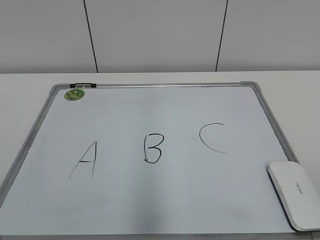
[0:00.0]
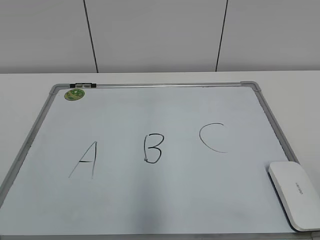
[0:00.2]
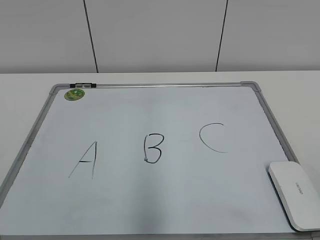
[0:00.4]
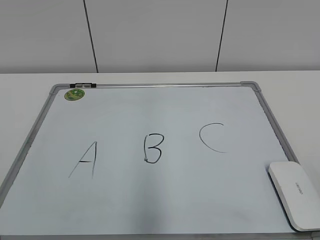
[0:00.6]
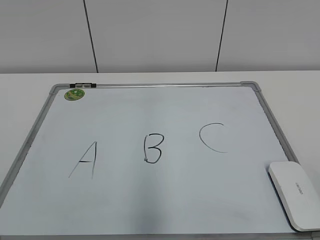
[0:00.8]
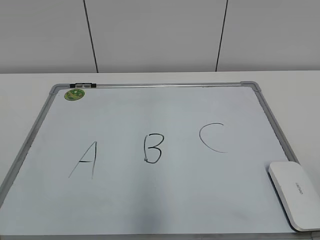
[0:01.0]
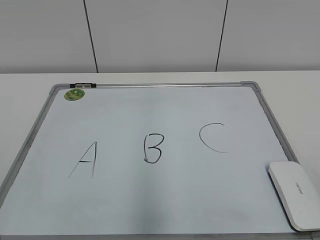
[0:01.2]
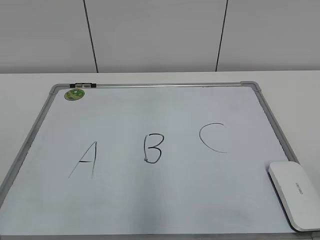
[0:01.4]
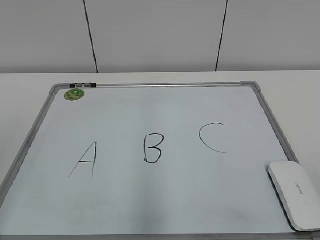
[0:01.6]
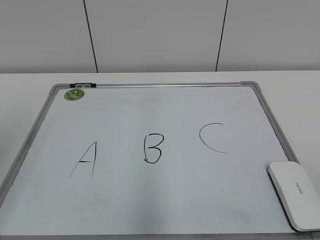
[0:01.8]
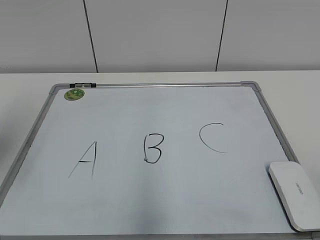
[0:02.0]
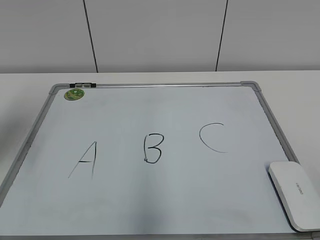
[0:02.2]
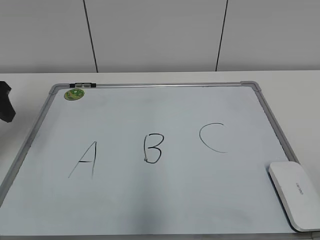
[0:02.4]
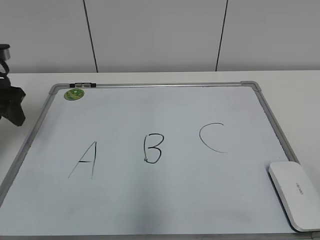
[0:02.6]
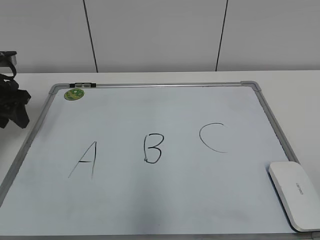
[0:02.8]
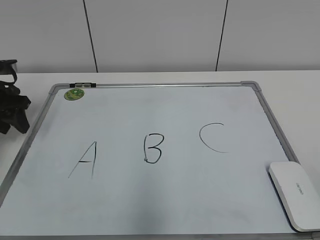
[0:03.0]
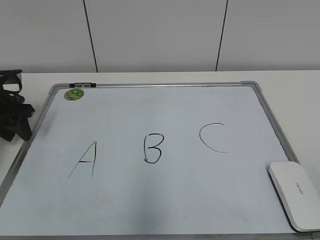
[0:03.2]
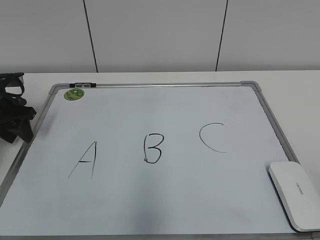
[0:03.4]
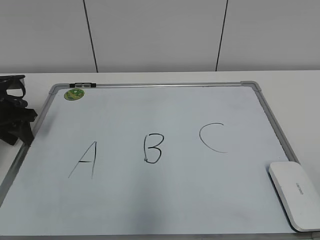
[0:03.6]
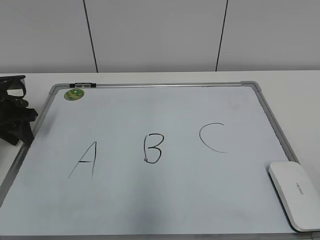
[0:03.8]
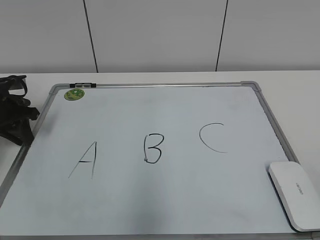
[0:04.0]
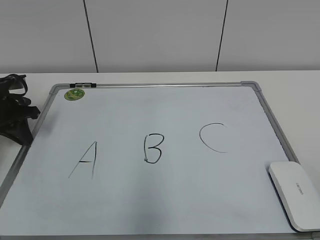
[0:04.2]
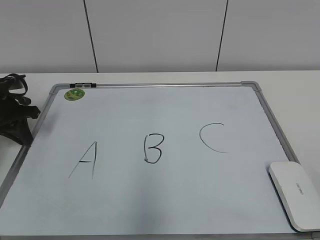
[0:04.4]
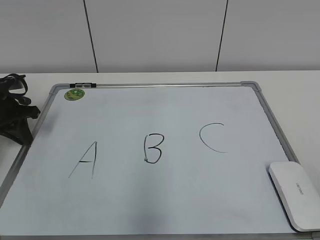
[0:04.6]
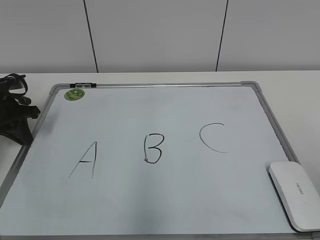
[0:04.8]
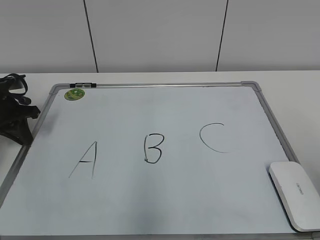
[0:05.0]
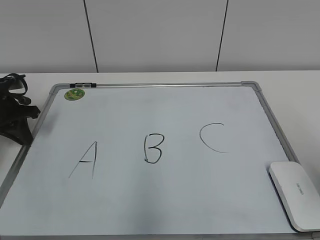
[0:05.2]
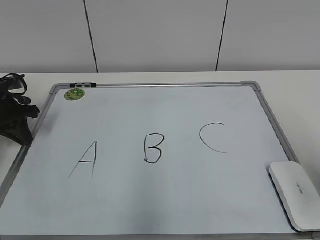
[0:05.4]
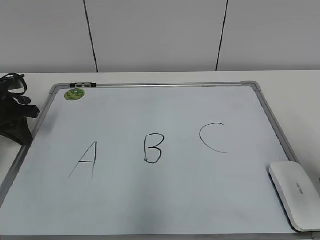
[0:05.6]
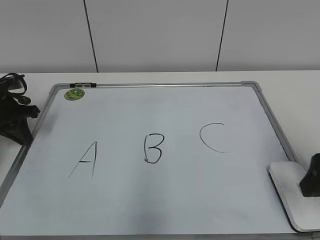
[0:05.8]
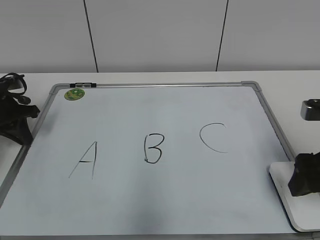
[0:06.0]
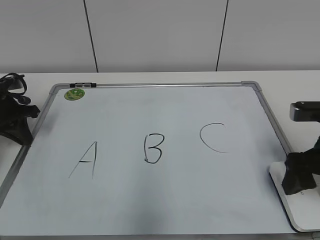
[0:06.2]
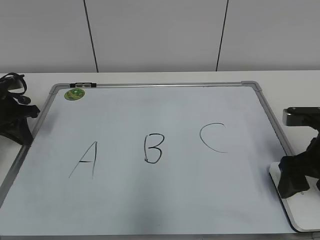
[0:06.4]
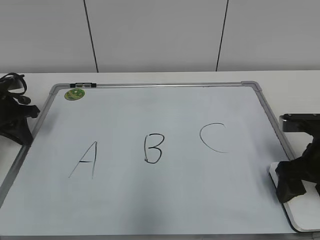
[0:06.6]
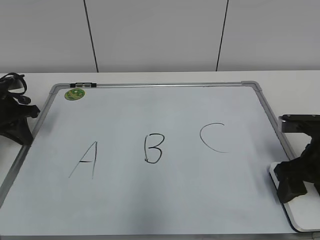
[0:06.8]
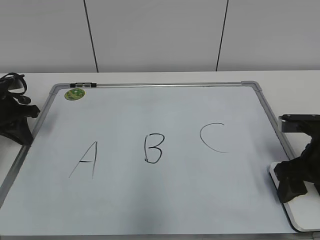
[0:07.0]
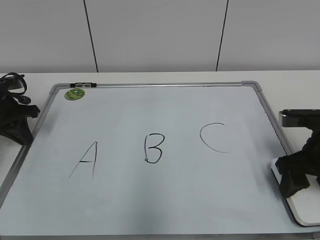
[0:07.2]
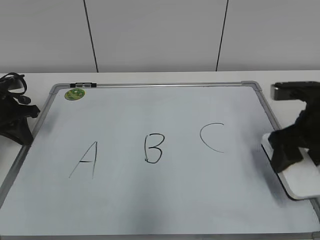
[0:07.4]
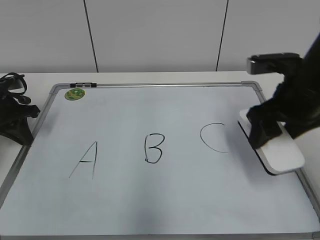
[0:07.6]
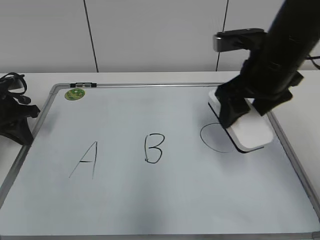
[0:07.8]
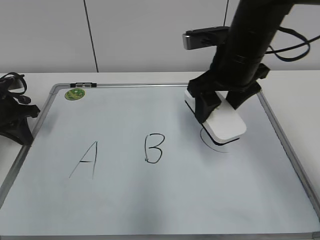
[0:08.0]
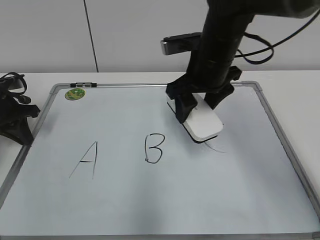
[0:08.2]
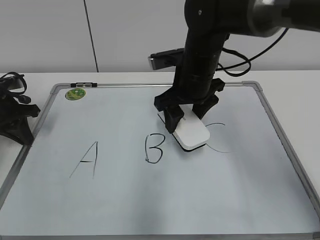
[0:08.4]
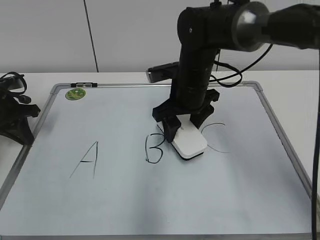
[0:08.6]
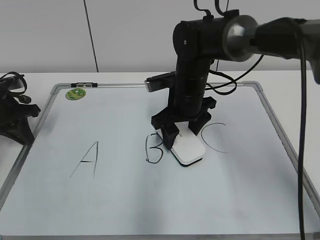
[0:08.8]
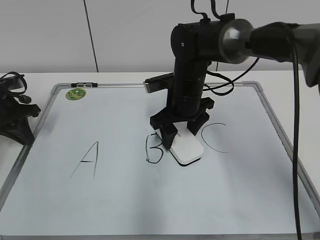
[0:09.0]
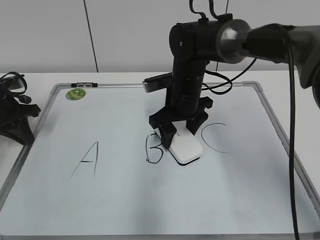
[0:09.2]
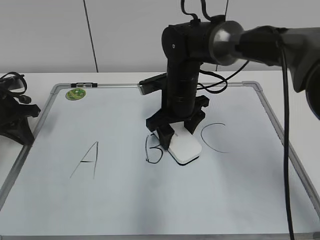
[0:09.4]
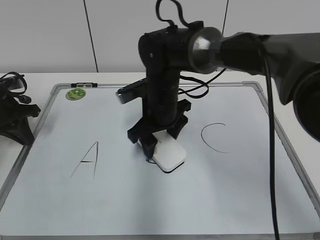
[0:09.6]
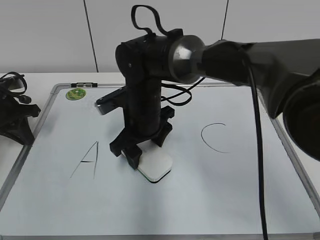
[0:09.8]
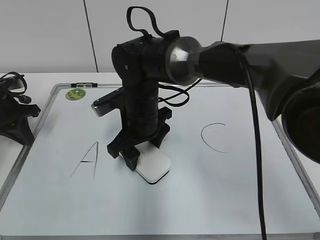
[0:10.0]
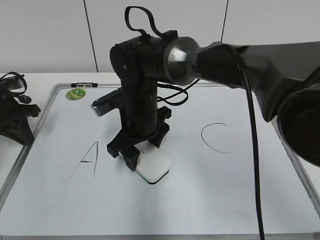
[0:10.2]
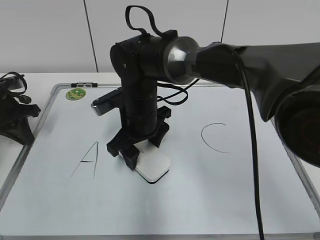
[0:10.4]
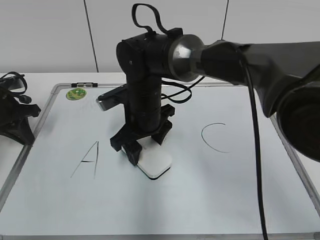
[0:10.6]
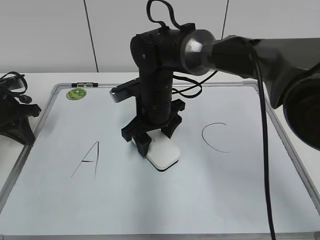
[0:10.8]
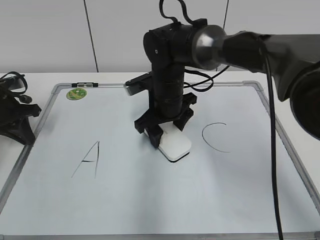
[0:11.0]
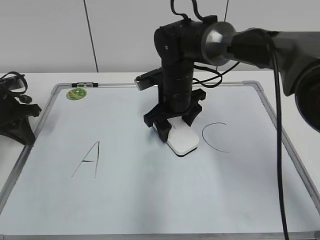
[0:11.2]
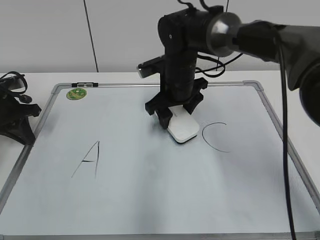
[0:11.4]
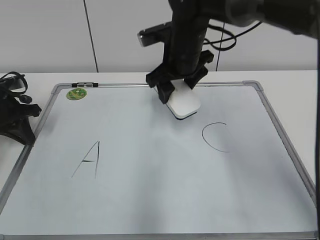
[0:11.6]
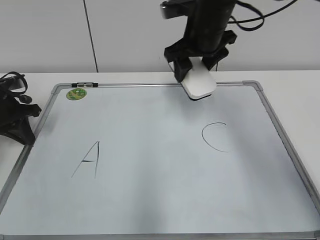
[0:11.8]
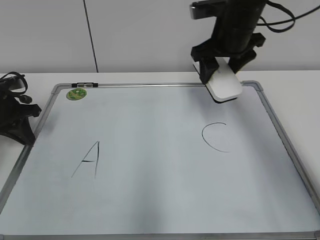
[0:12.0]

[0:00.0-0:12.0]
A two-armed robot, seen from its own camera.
Task of the whole recording: pick up the eraser on the blackboard and erase the letter "B".
Step, 0:00.0 to 0:04.0: Hold the drawing board steady with your left hand.
Step, 0:04.4 to 0:06.8: Grab the eraser with your right hand.
Step, 0:07.2 to 0:11.2: Erase the letter B with your right hand.
0:01.6 to 0:03.0: The left gripper goes some 35 cm forward and downward.
0:03.0 to 0:04.4: The left gripper closes up.
0:04.4 to 0:06.0: The right gripper moves forward, about 25 cm, and opens its fingers.
0:06.0 to 0:07.6: The right gripper moves forward and to the left, about 10 cm, and closes up.
0:07.6 to 0:09.0: The right gripper heads to the left, forward and downward, covering roughly 20 cm.
0:09.0 to 0:10.4: The right gripper shifts roughly 10 cm to the left.
0:10.4 to 0:12.0: The right gripper moves to the right, upward and forward, approximately 20 cm.

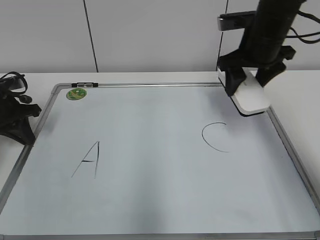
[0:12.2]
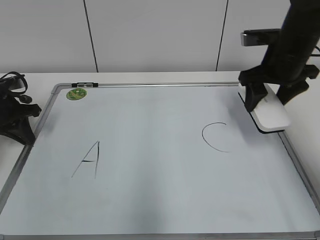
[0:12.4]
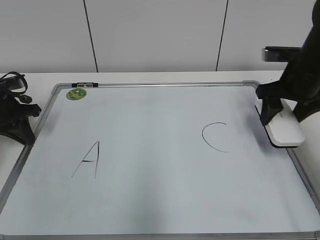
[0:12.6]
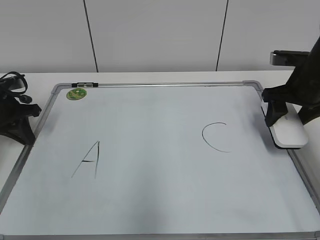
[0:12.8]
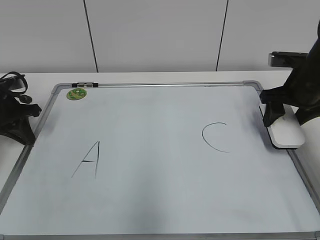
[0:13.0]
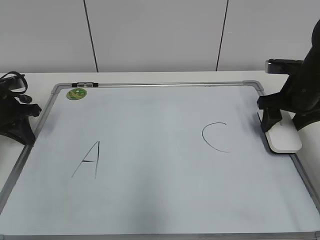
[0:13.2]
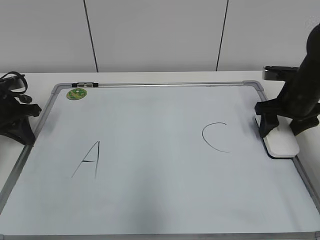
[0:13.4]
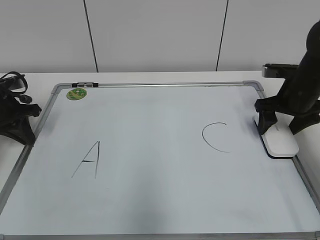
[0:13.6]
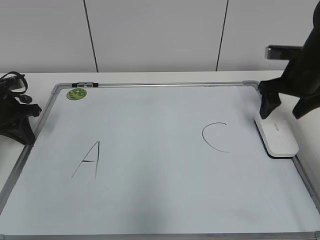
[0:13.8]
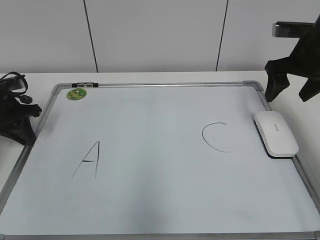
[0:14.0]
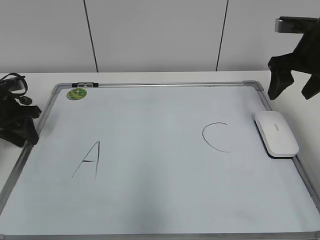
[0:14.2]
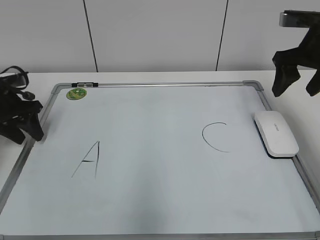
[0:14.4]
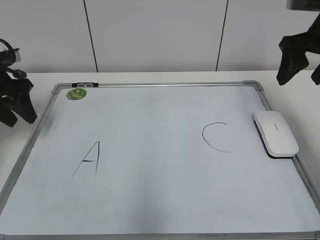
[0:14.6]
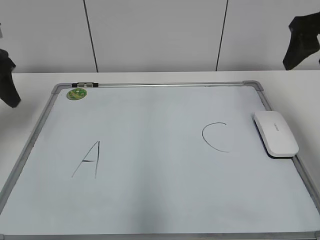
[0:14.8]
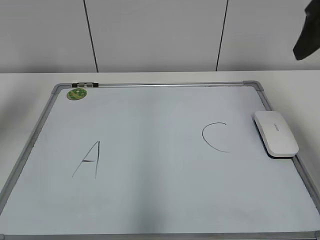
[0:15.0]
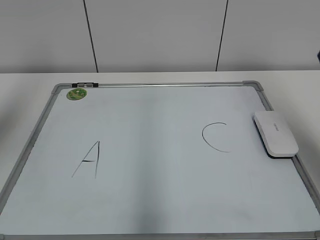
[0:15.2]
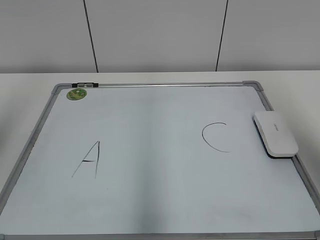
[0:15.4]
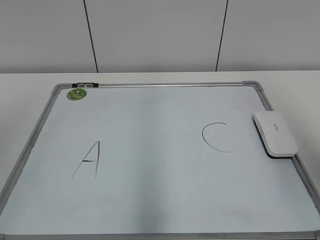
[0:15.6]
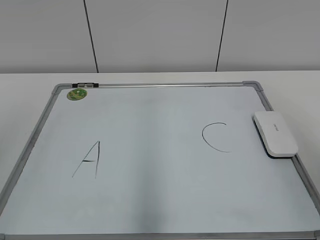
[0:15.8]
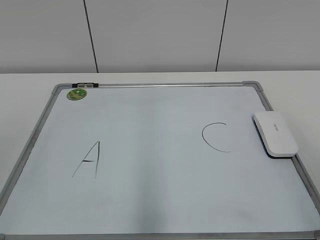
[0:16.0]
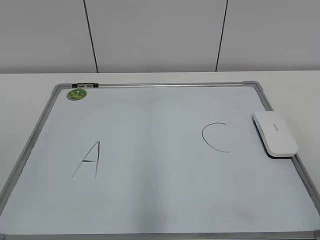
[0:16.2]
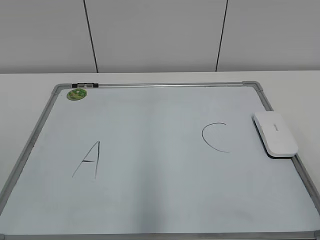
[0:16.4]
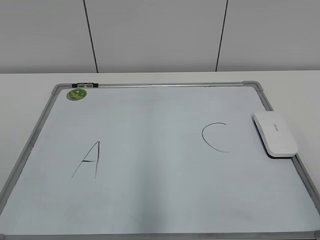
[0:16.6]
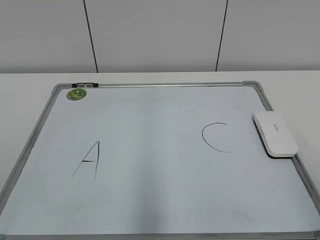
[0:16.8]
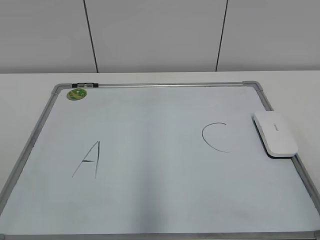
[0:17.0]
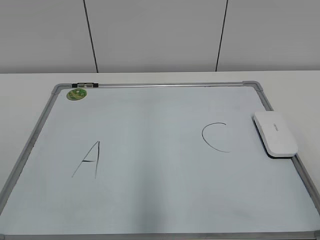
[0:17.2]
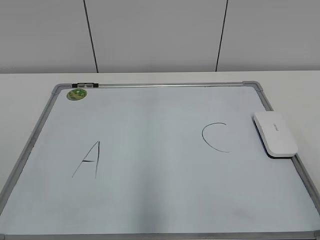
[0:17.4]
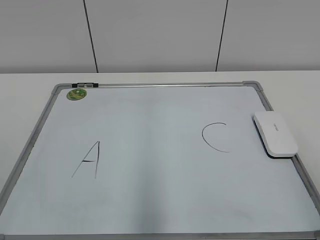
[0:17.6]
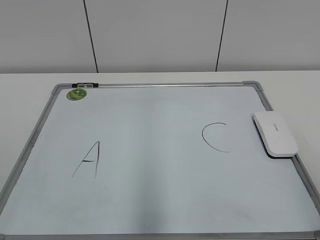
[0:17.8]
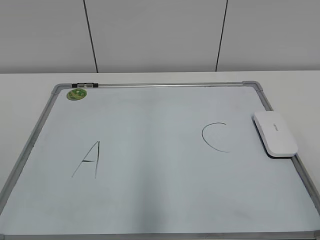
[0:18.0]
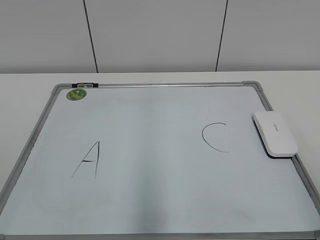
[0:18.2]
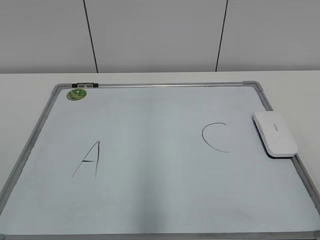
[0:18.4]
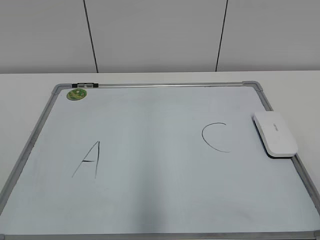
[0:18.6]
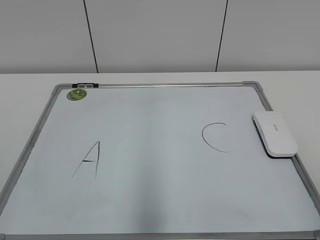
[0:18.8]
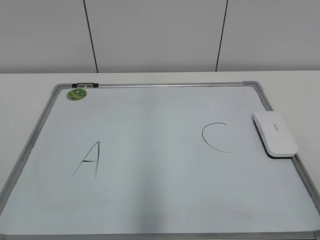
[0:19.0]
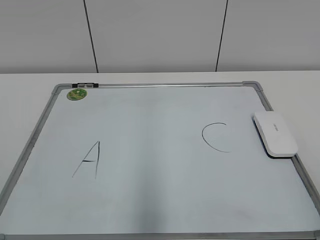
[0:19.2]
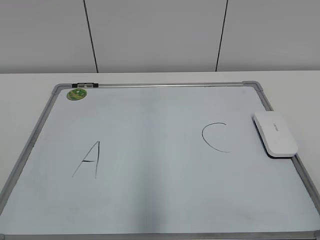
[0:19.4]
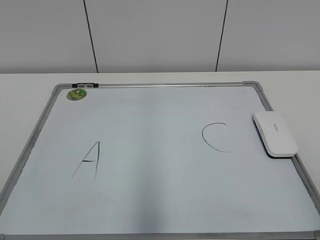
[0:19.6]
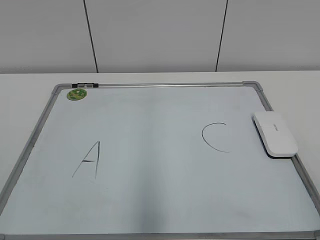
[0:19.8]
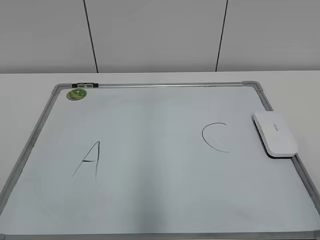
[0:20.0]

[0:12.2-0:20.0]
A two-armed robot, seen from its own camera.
Task of the whole recording: pick up the eraser on the blackboard and erase the letter "B".
Step, 0:12.2 to 0:13.6: Put down the eraser with your right hand.
0:12.2 to 0:13.8: The right gripper travels to the right and downward by approximately 10 cm, and opens.
0:13.8 to 0:15.4: The left gripper shifts some 35 cm upward and backward, and opens its fingers. Meanwhile the right gripper heads backward and upward, covering about 30 cm.
0:15.4 to 0:16.8: The grippers both shift backward and downward by roughly 20 cm.

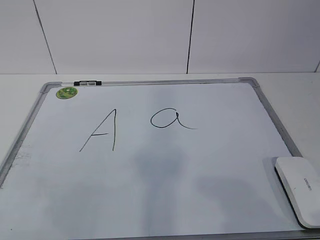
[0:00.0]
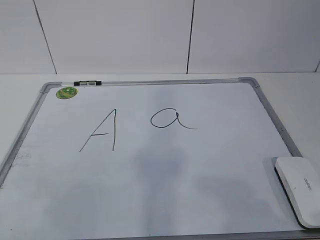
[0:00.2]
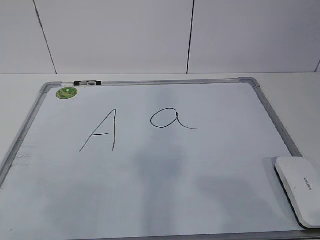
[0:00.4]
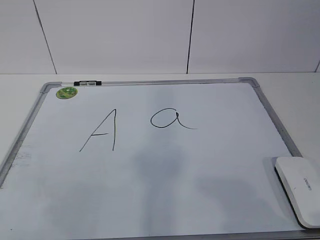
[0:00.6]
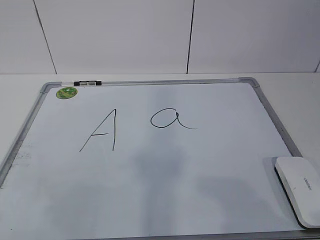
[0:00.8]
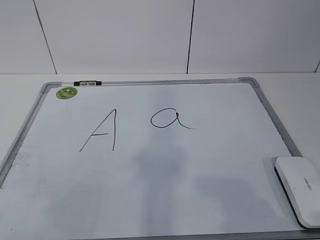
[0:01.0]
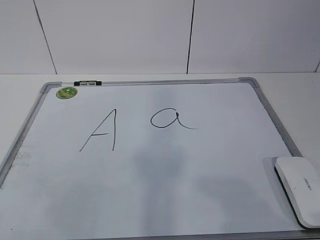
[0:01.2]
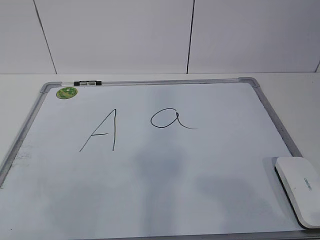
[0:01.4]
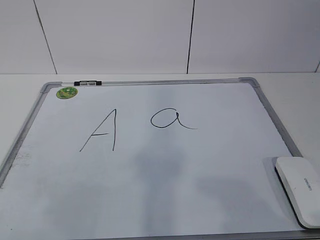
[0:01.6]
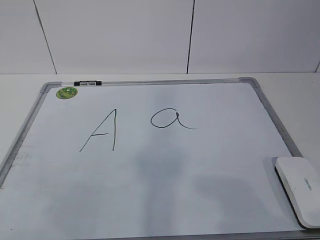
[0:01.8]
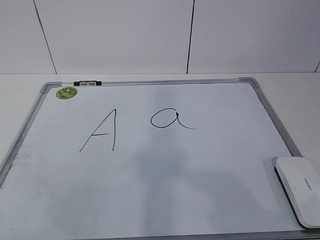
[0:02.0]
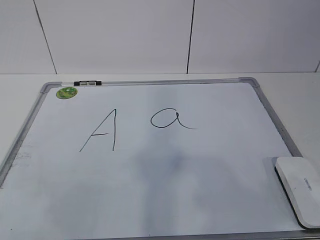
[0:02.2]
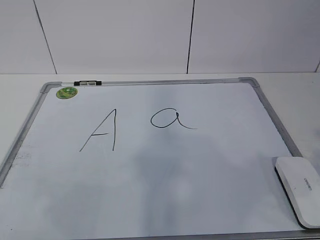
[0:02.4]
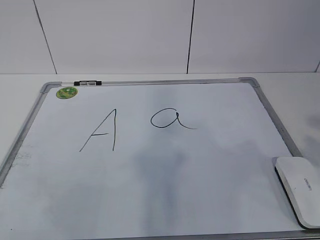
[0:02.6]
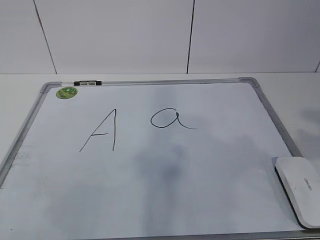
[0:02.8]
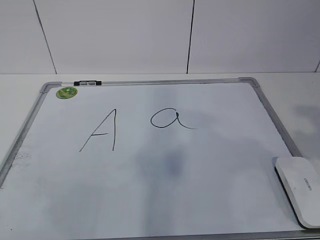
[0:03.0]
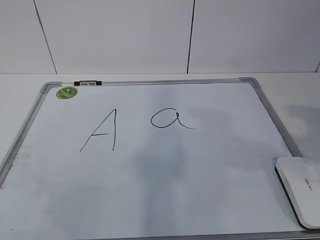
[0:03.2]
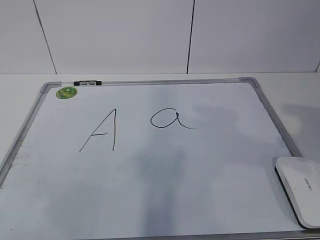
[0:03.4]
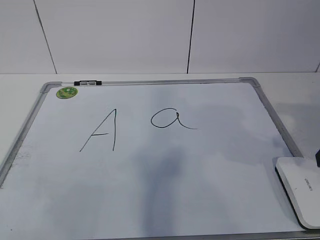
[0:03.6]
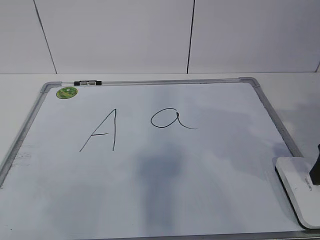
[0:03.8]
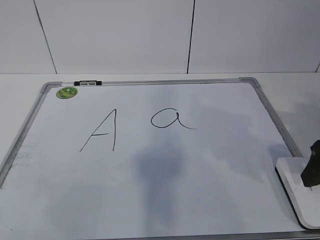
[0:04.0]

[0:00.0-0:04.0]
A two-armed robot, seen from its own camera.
Task of the whole recording: pick up the eraser on the blackboard and erase the letter "a".
0:02.6 to 0:04.0: The right gripper shifts about 20 cm forward and downward.
